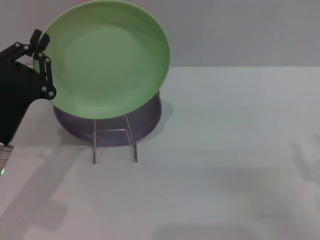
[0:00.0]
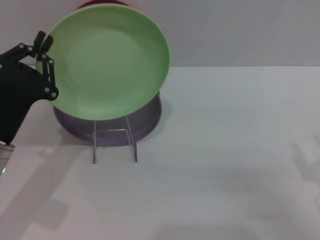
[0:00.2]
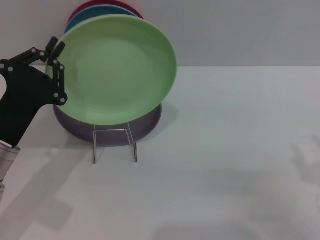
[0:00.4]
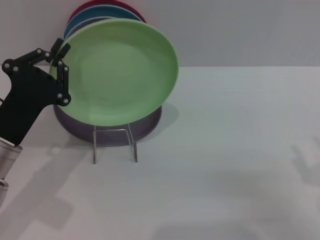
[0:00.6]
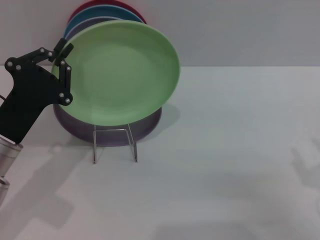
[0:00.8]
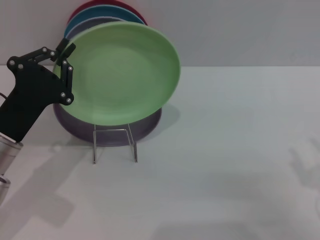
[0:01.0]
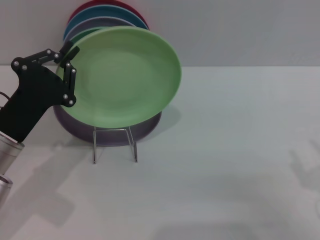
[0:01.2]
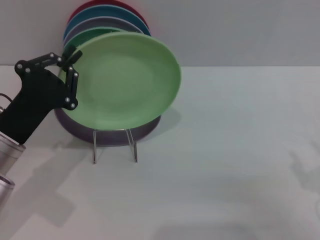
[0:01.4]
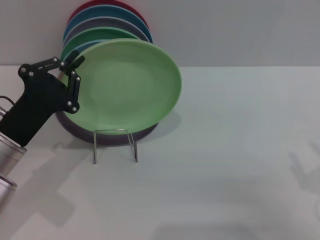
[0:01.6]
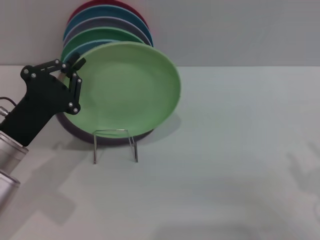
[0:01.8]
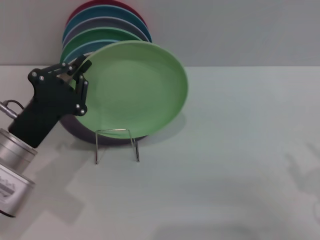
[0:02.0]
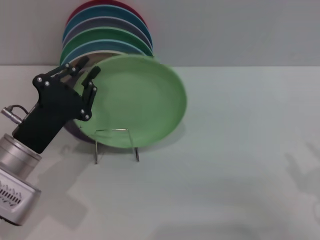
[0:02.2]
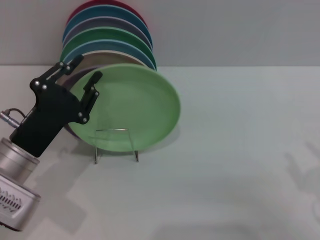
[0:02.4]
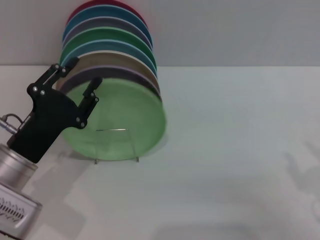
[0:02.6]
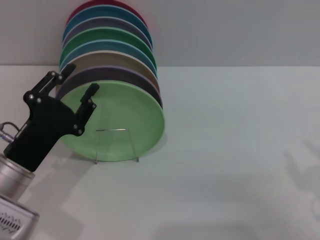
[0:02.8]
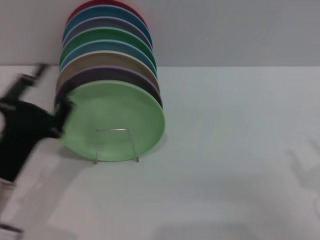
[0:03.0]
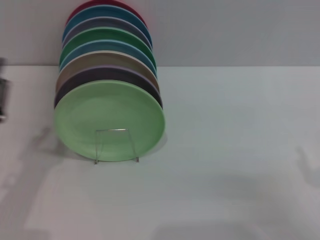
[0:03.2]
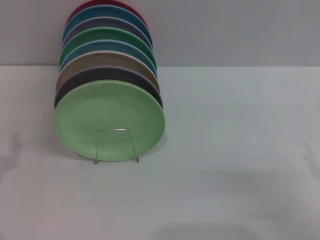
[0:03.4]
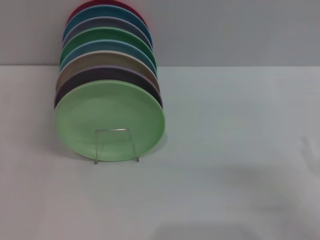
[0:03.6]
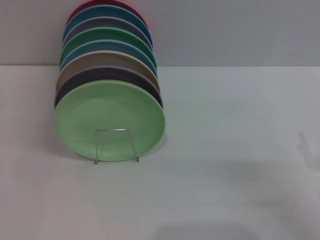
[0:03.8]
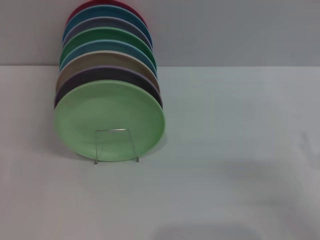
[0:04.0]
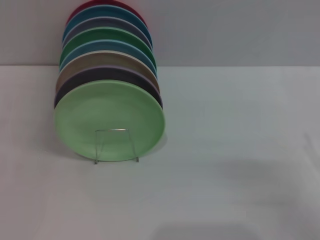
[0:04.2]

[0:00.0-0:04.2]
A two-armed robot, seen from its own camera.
Task of the whole recording: Grip the plate with one hand, pass it to the other, then set it on the shelf.
Step, 0.0 to 2.8 s: Place the plate on the shelf with the left gripper.
0.0 to 1.4 s: The grippers make only small movements.
1.4 to 2.8 s: The left gripper opens up.
2.8 to 4.2 s: The left gripper shifts about 15 cm to the left and backward, and opens.

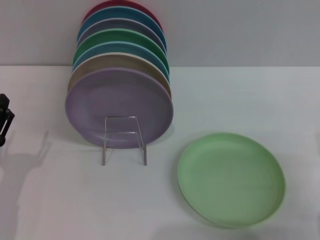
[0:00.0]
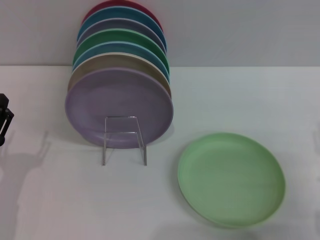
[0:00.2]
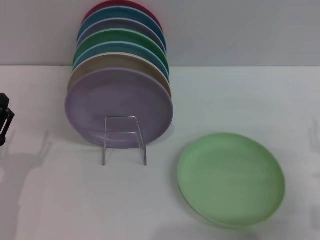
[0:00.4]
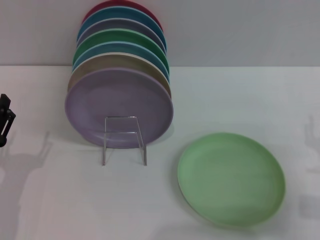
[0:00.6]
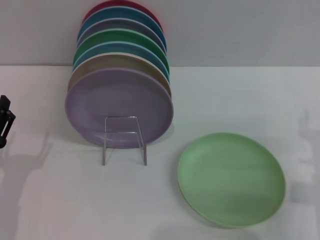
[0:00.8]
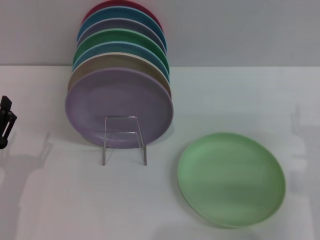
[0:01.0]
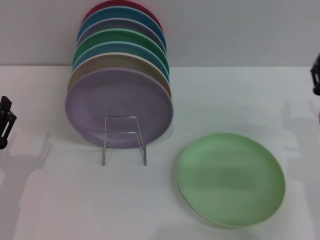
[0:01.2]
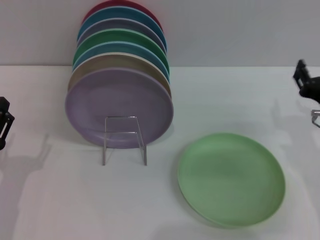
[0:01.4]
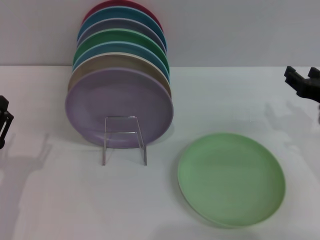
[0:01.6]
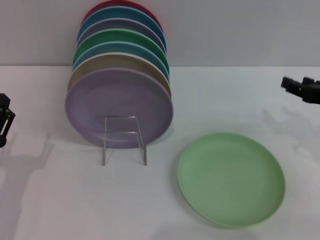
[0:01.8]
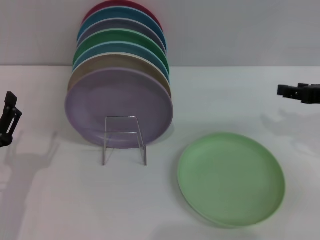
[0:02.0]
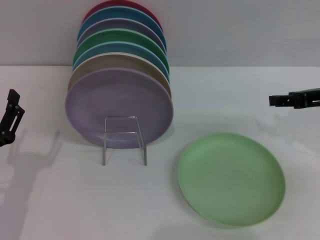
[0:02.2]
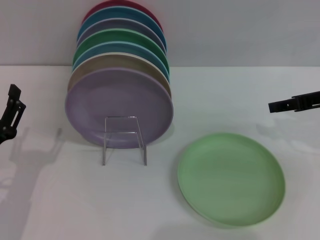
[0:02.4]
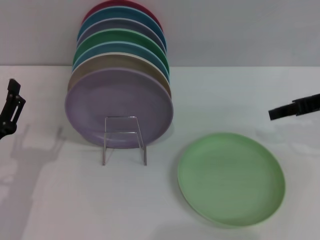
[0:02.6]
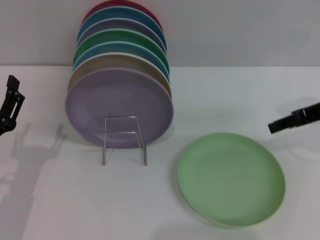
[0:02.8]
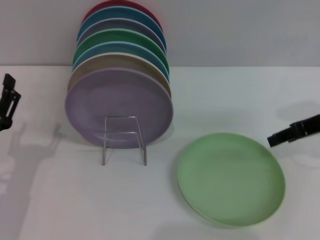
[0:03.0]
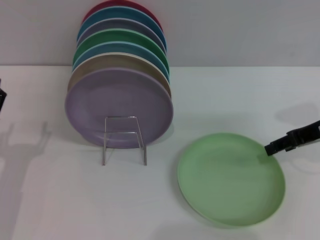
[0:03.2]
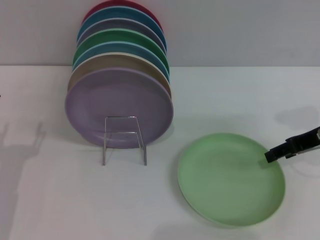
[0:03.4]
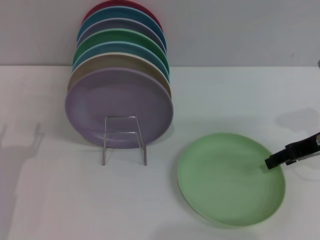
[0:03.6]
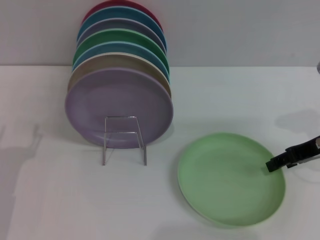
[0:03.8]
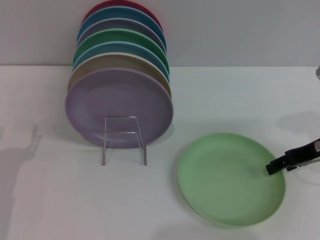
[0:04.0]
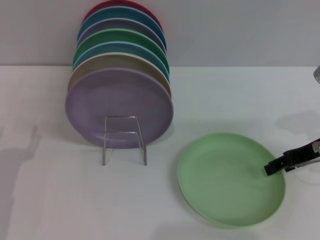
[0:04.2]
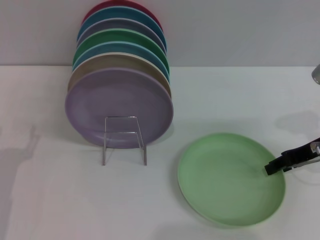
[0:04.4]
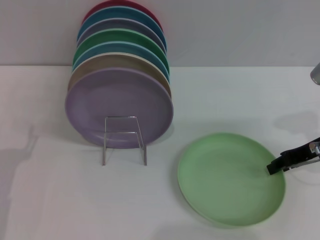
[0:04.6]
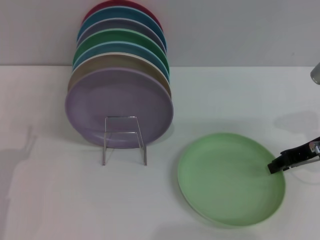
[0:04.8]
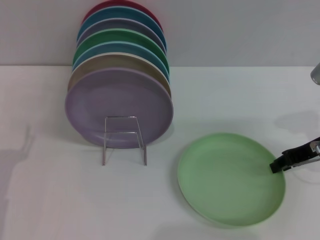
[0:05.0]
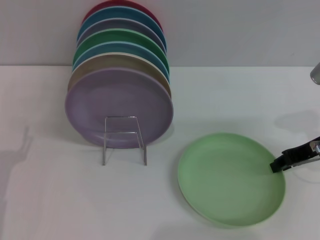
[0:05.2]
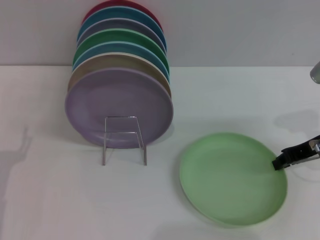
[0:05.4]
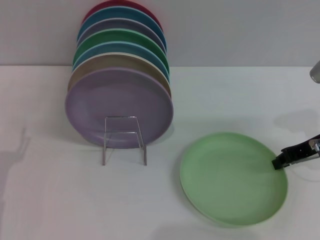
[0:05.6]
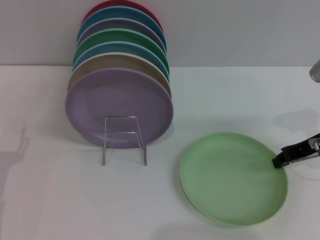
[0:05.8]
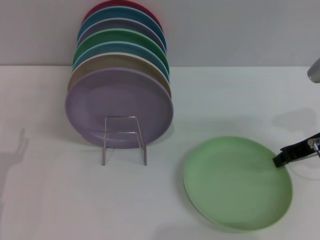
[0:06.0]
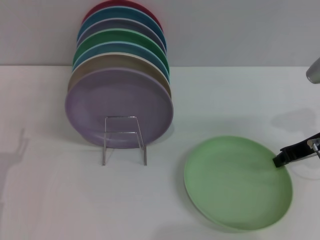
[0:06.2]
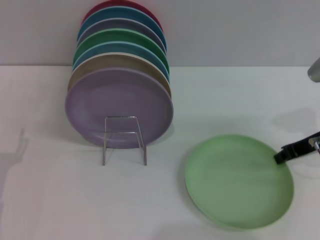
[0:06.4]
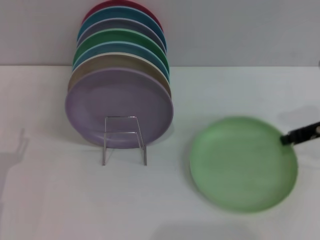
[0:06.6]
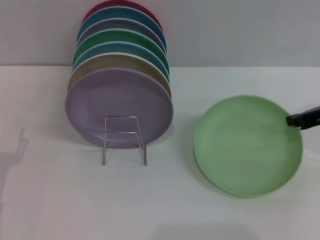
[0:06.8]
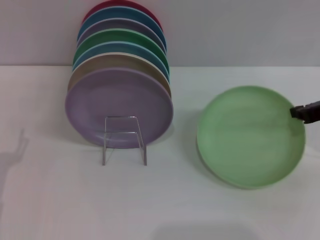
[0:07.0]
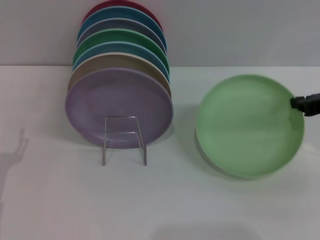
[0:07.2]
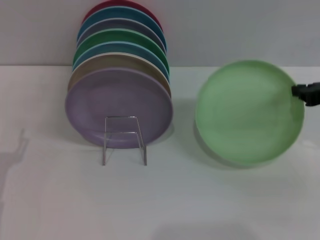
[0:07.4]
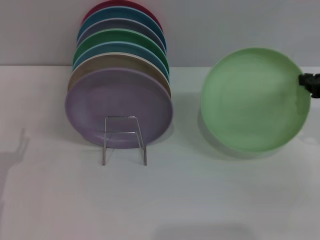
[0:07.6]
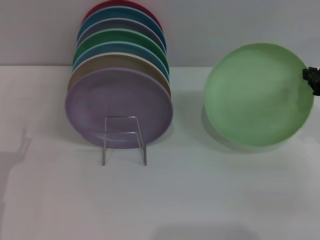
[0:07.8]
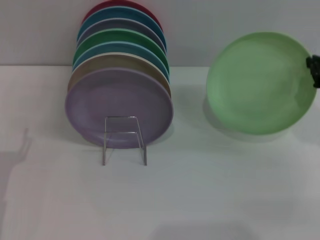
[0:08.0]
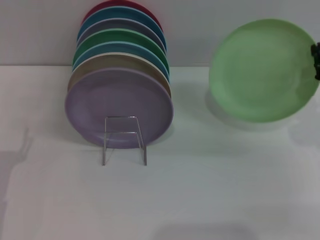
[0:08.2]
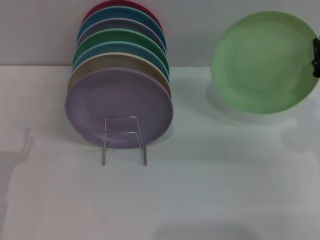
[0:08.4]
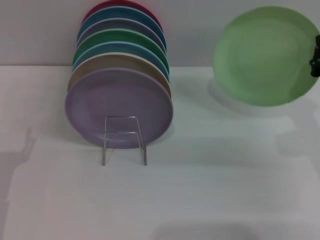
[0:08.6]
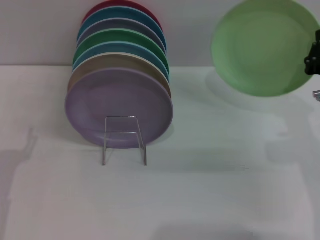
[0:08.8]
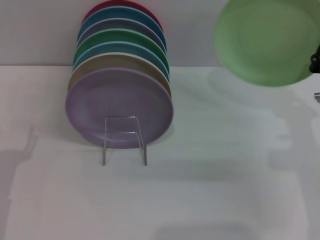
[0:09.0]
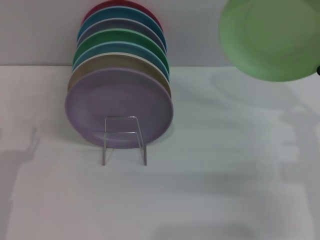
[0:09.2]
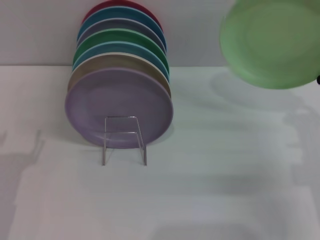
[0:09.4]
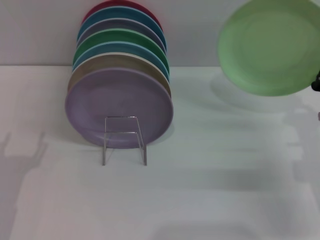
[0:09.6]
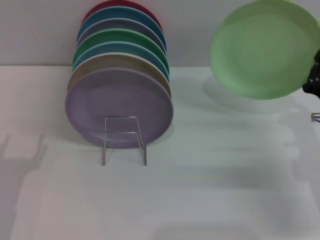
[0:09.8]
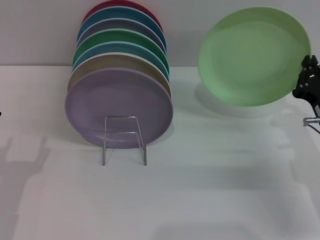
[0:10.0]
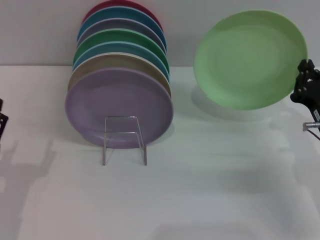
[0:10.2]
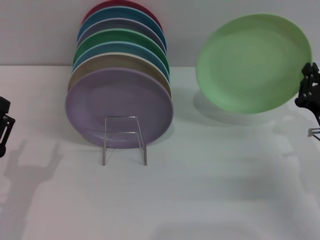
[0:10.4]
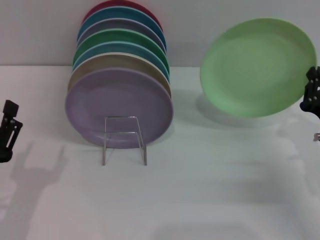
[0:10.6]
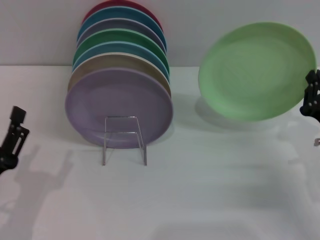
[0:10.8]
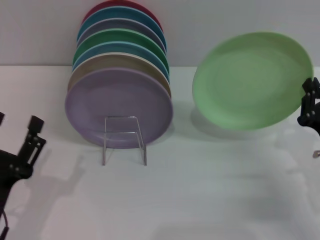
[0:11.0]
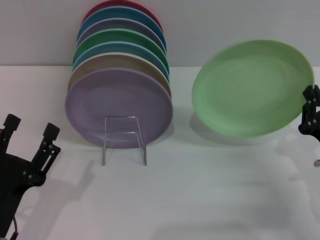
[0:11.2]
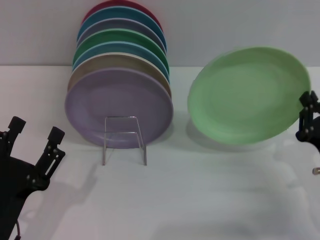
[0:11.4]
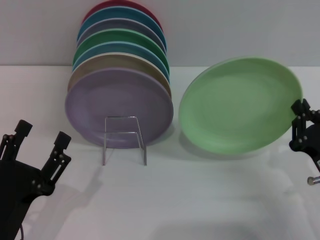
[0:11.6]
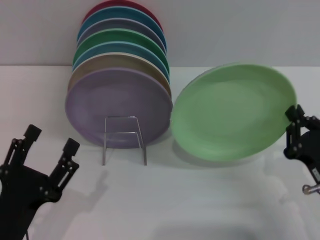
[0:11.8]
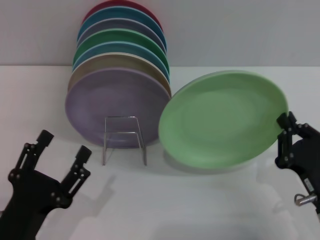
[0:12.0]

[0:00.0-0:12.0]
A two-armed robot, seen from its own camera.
Task of the whole recording: Grip the plate with one hand, pass it to the other, then set it on the shelf.
Step, 0.0 to 8.4 s: Pick up the plate with the right gripper.
0.0 to 1.6 s: The right gripper travels forward and upward by approximately 10 cm.
1.6 to 3.0 s: The right gripper travels forward and upward by some 5 cm.
3.0 to 4.4 s: The grippers stay close to where they were, moving slightly.
4.4 to 6.0 s: The right gripper closes.
6.0 to 7.6 s: The right gripper changes place by roughly 5 cm.
7.6 to 9.0 s: The right gripper is displaced to the left and downward by some 10 cm.
9.0 to 10.4 s: The right gripper moves downward, roughly 5 cm.
10.4 to 12.0 s: The right gripper moves backward, roughly 10 cm. The left gripper changes place by some 5 cm.

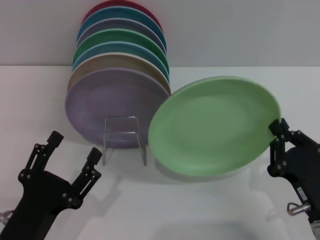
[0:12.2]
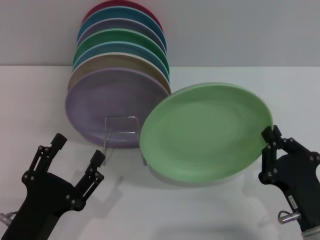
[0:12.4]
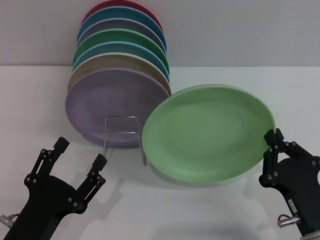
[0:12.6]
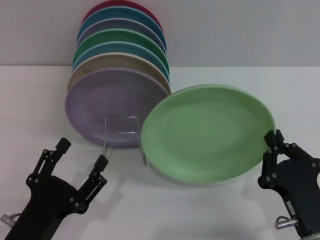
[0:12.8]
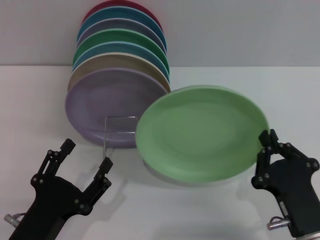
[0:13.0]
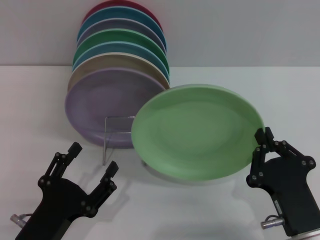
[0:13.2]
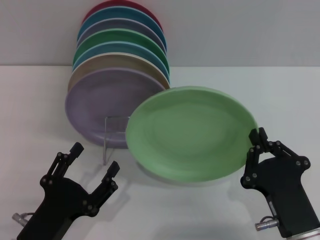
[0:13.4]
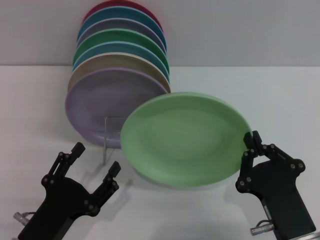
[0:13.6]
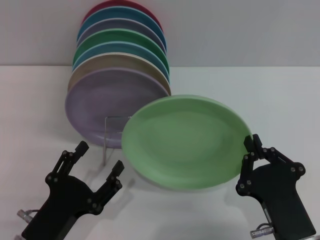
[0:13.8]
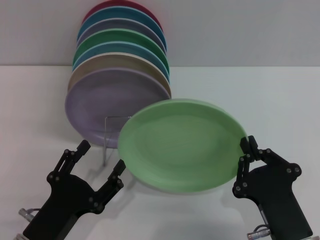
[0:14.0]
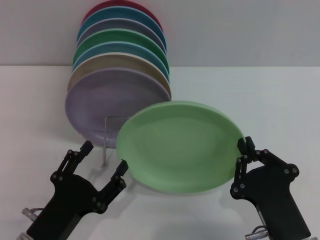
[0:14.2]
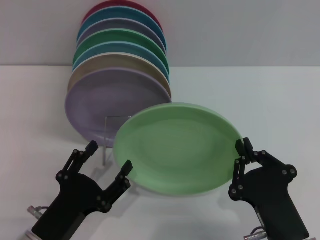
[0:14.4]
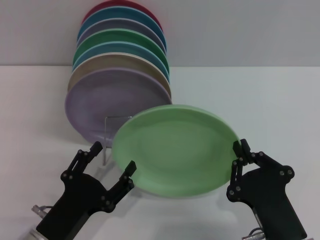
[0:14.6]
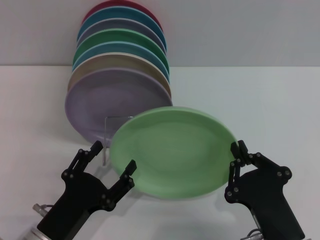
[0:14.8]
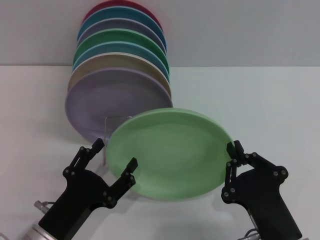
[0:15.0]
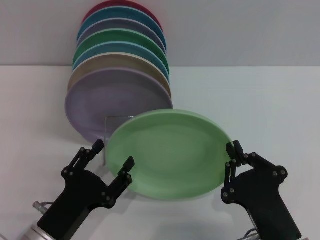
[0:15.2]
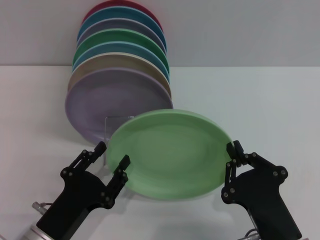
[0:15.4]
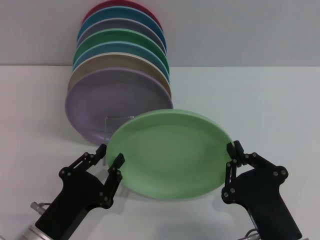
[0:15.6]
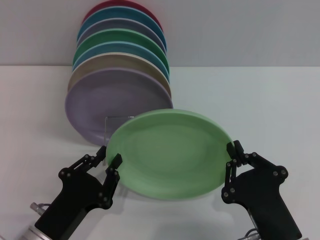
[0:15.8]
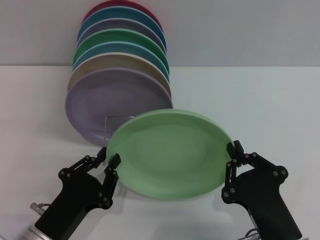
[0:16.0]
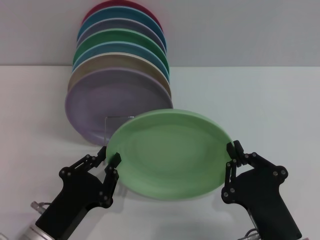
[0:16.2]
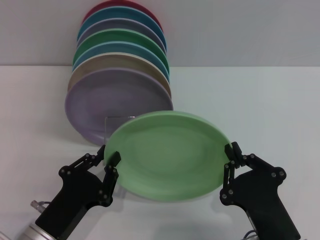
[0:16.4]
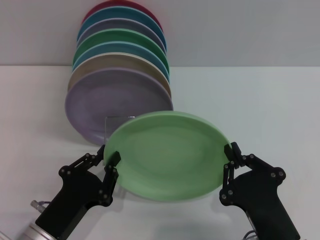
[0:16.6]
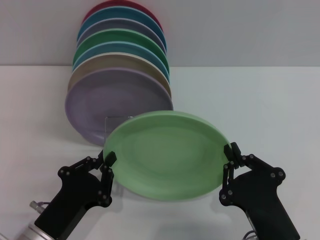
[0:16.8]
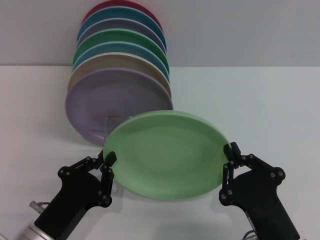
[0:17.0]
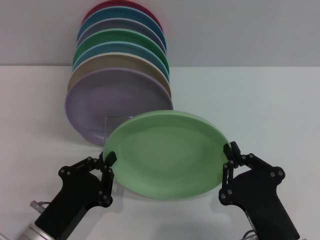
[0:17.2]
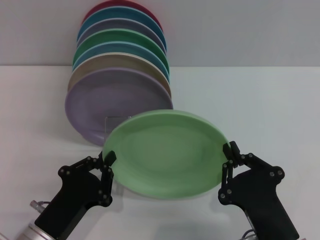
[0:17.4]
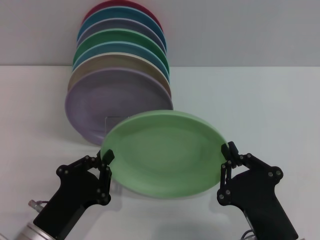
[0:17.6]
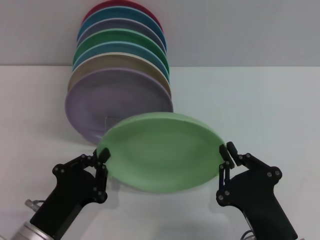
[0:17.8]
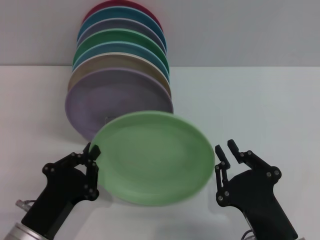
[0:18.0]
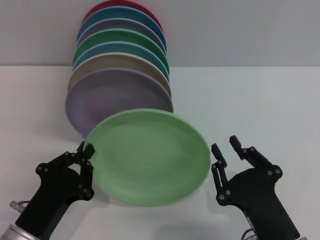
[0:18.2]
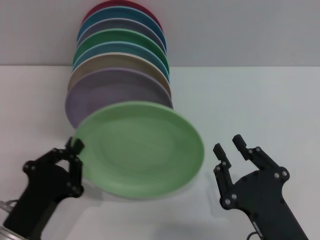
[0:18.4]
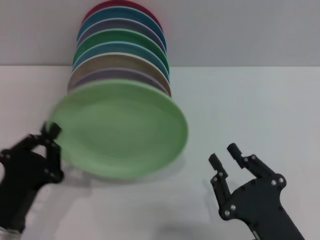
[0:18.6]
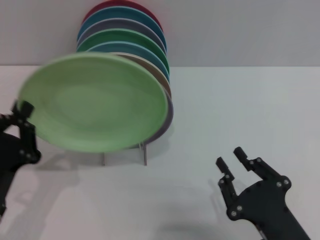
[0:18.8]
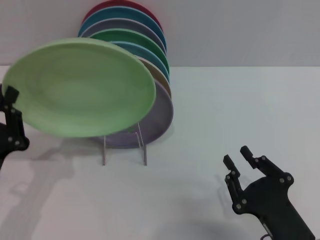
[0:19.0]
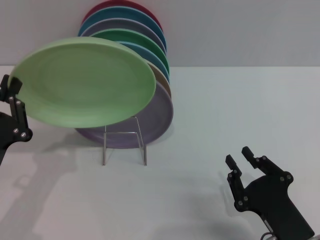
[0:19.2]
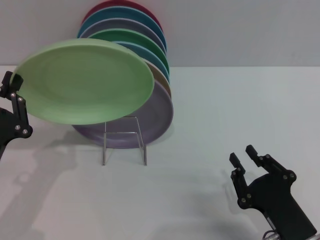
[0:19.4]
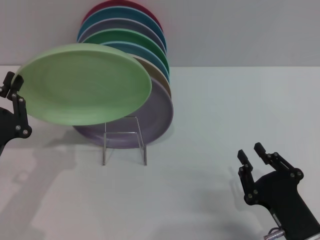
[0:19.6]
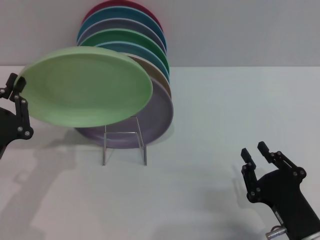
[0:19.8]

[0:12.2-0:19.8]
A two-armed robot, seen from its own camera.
Task of the whole recording: Grip the plate with one hand, pass it to the other, then set it on the shelf.
Step, 12.2 to 18.4 s: Pass the plate from the right gripper to the left gripper.
12.2 to 13.8 s: The right gripper travels to the left by some 5 cm.
13.8 to 15.2 s: The grippers make only small movements.
15.2 to 16.8 s: The left gripper closes up.
16.8 to 18.2 s: The grippers make only small movements.
18.2 to 19.8 s: The right gripper shifts approximately 5 cm to the right. The left gripper heads to the left, covering roughly 5 cm.
